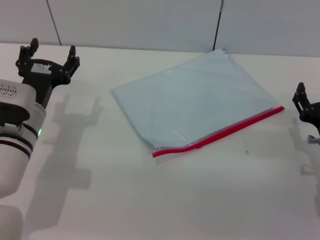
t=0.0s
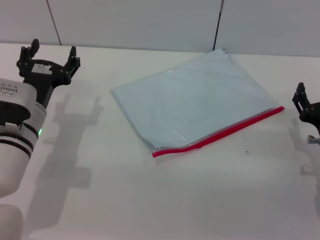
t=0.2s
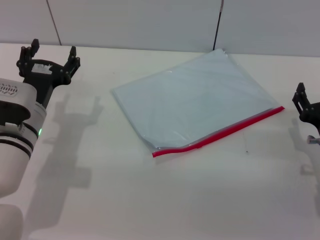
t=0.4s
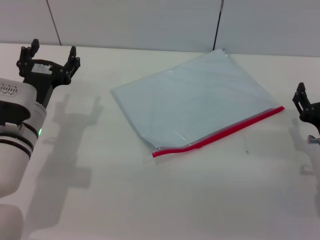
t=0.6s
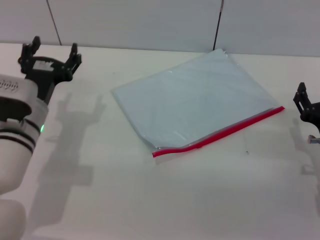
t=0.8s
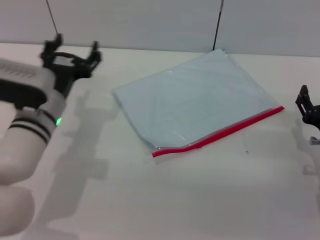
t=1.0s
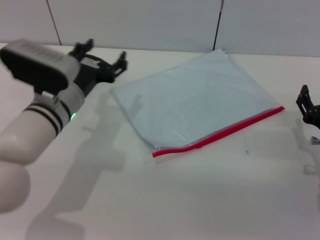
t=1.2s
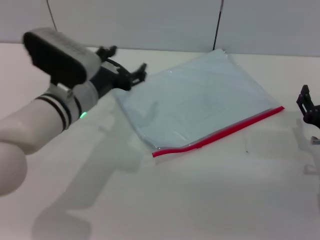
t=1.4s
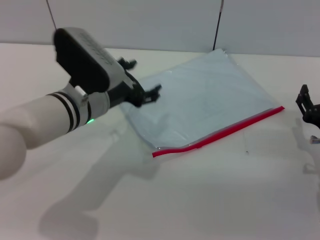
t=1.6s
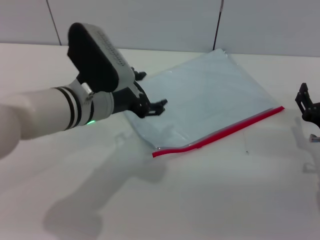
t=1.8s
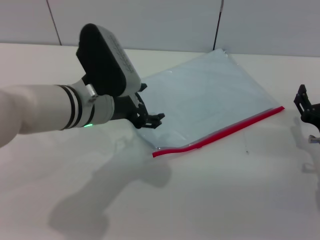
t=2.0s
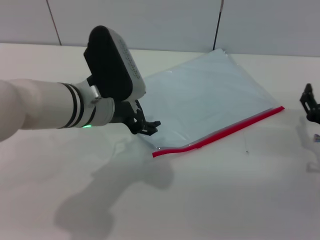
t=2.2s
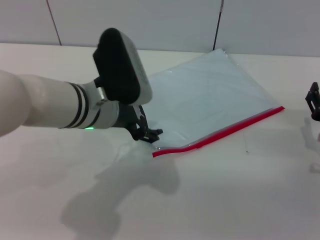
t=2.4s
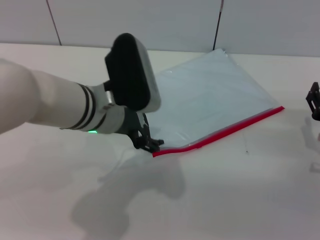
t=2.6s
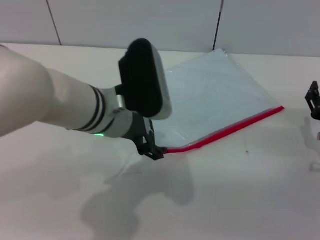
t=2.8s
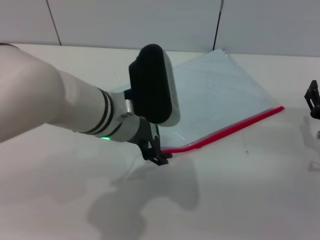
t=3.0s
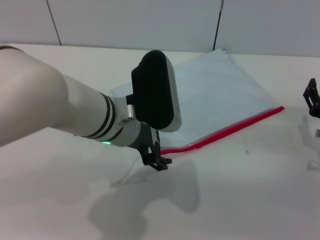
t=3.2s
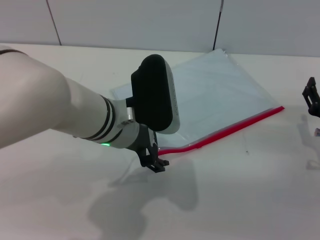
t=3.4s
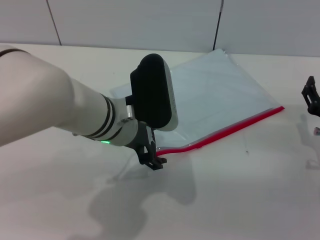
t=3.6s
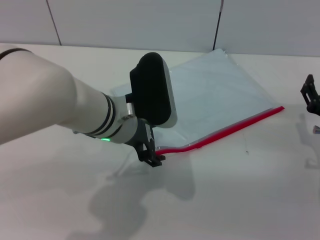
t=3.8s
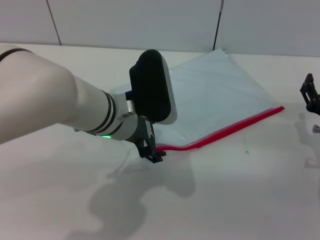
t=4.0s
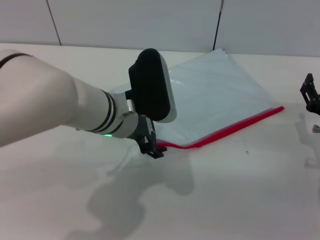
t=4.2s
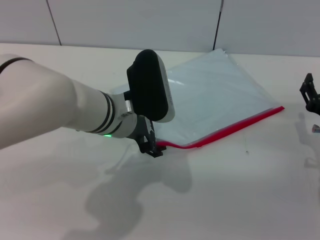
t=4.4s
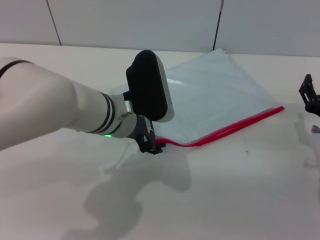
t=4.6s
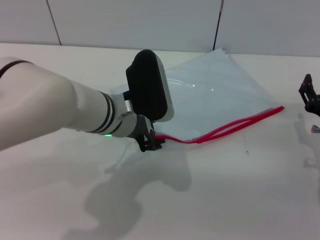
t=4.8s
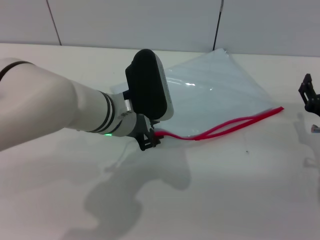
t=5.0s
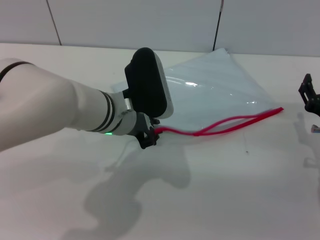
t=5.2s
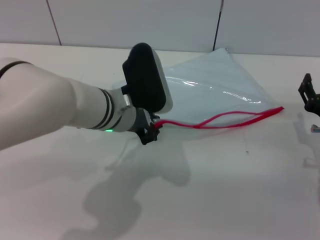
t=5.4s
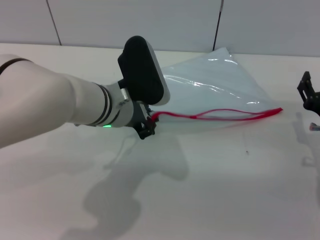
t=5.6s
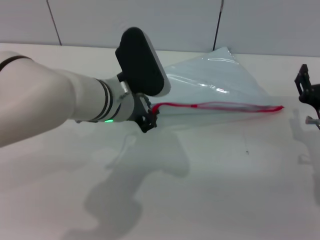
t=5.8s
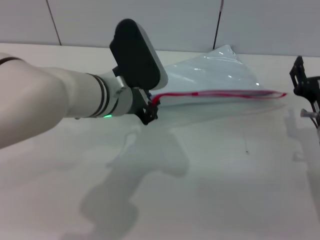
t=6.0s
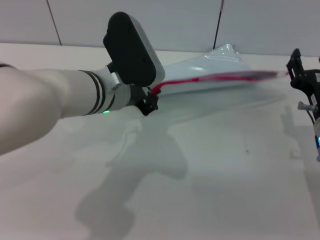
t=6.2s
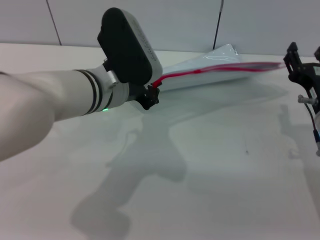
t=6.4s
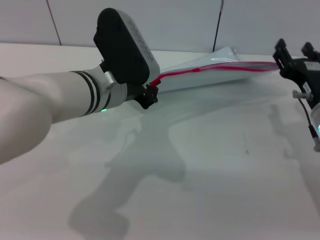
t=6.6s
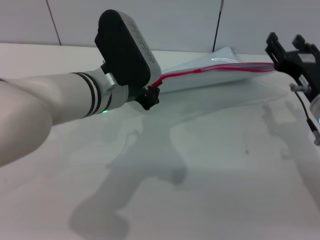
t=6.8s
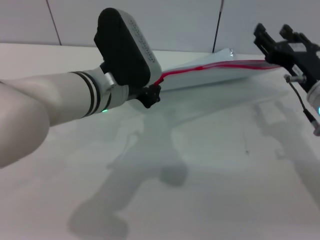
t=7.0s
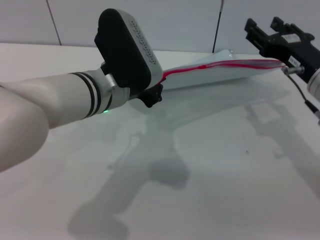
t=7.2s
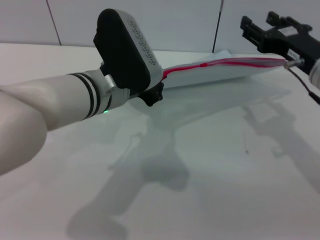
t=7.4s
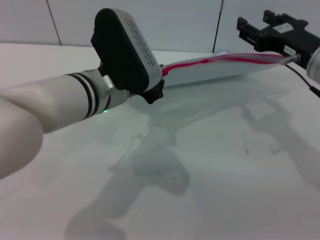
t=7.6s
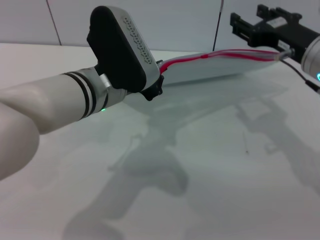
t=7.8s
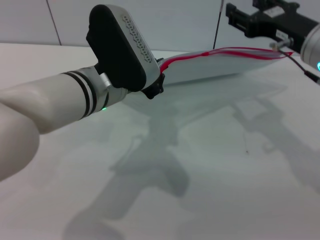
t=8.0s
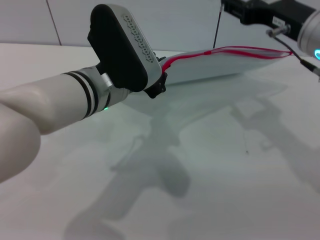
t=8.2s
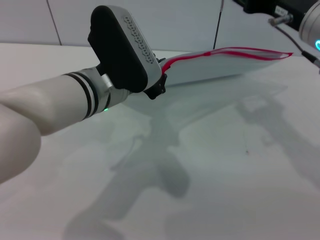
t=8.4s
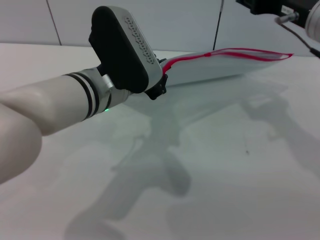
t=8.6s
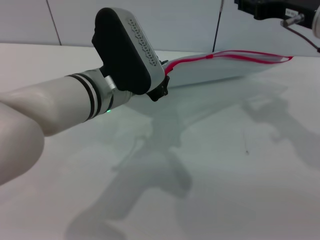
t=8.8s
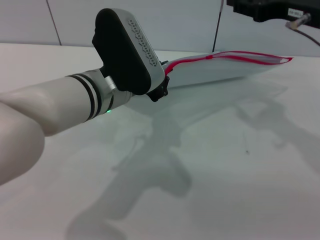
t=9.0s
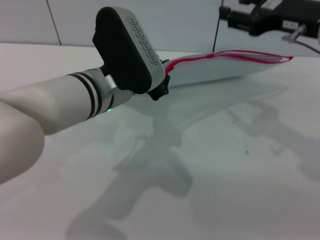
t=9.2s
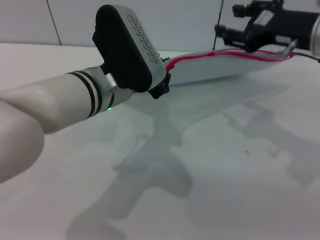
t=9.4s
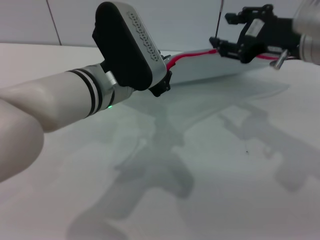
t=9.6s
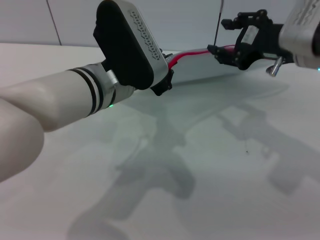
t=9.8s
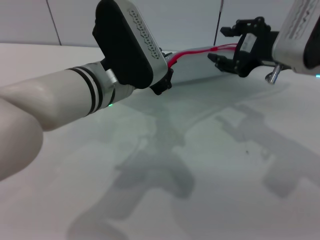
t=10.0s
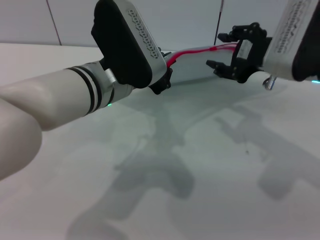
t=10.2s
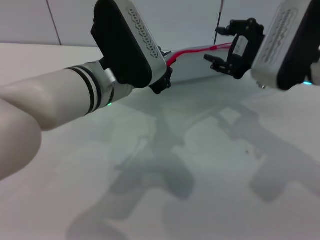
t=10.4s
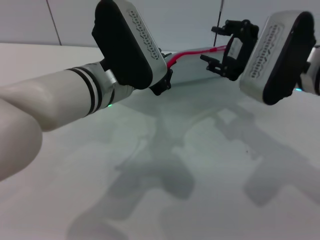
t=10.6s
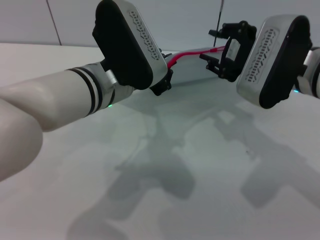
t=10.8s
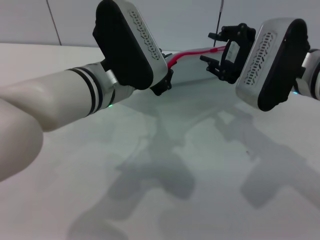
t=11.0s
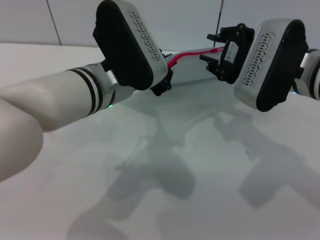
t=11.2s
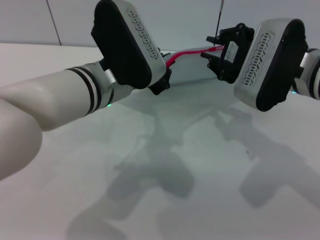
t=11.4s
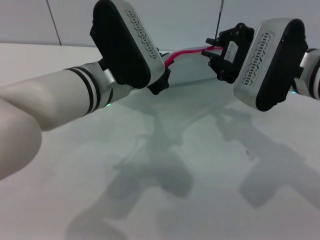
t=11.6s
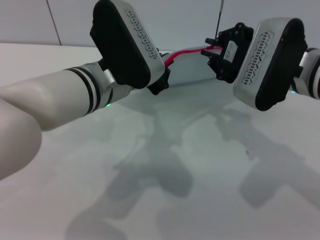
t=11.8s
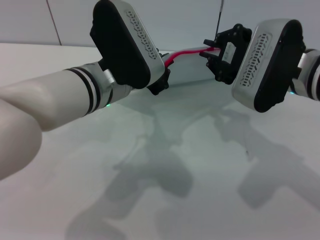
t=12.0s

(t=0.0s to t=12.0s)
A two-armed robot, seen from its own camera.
Step, t=0.0s - t=5.8s: Pick up the transparent plastic bag with the left gripper.
t=0.0s - t=1.6s: The left gripper moves to the right and upward, approximately 10 cm.
t=1.6s - t=3.0s: The left gripper is displaced to the right by about 5 cm.
t=3.0s - t=4.4s: The grippers make only small movements.
t=4.4s - t=6.0s: The left gripper closes its fingers.
t=6.0s - t=7.6s: The right gripper moves upward, approximately 10 cm.
t=7.6s - t=9.0s: The right gripper goes some 5 cm upward.
t=9.0s - t=10.4s: The right gripper changes place by approximately 5 cm.
t=10.4s - t=12.0s: The right gripper closes up.

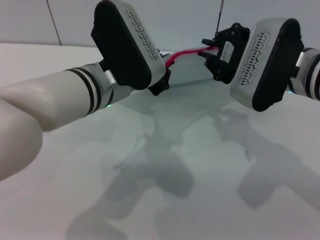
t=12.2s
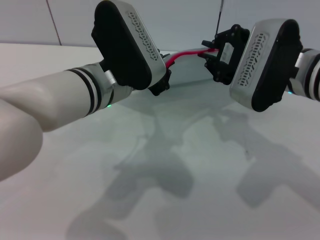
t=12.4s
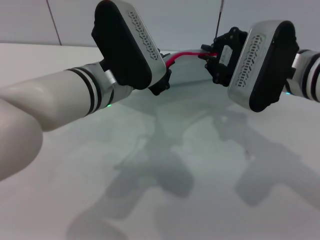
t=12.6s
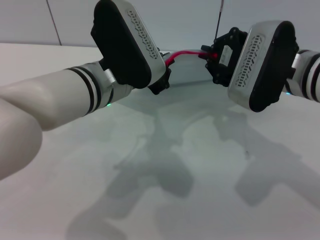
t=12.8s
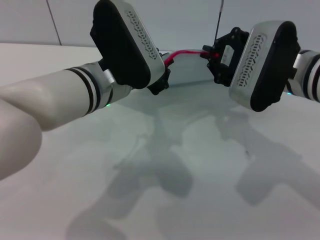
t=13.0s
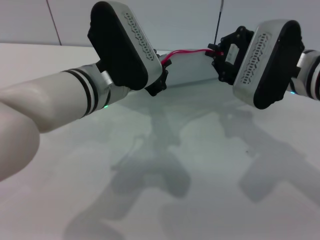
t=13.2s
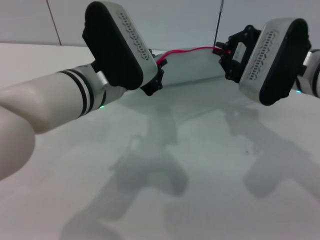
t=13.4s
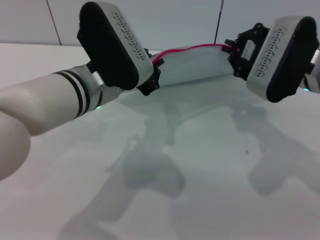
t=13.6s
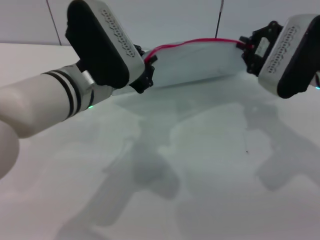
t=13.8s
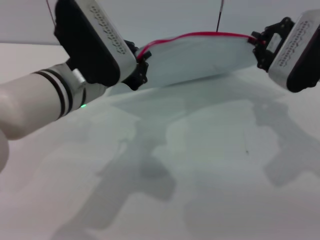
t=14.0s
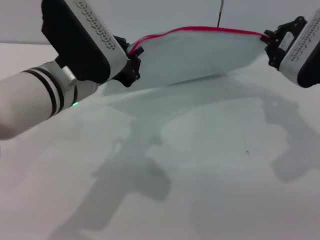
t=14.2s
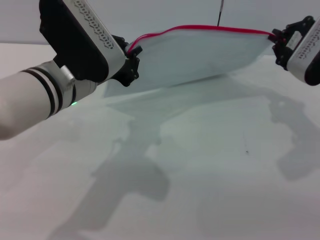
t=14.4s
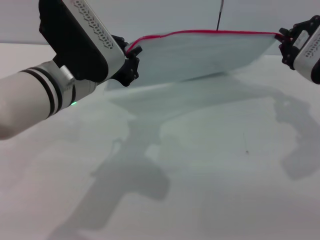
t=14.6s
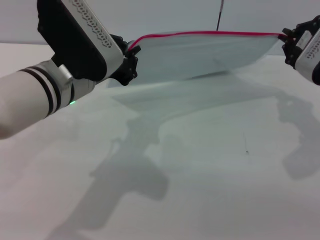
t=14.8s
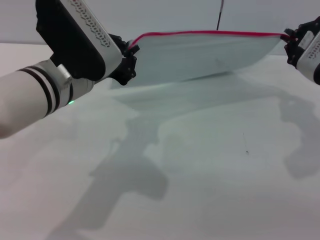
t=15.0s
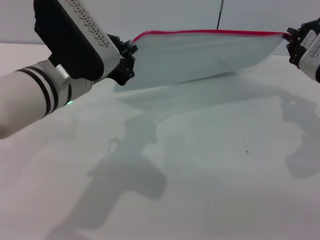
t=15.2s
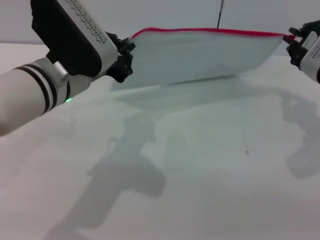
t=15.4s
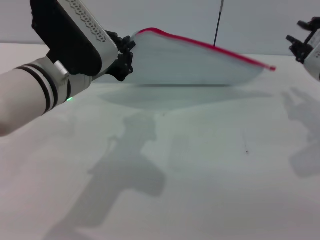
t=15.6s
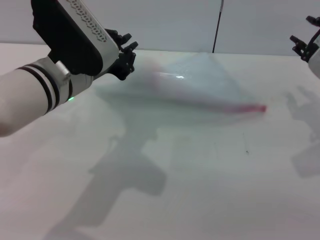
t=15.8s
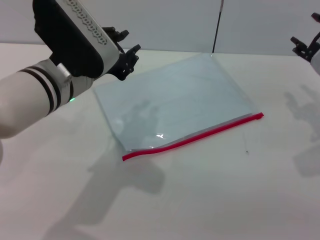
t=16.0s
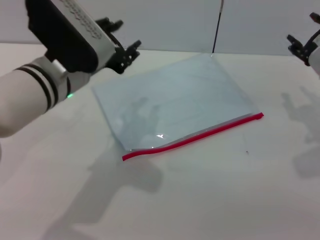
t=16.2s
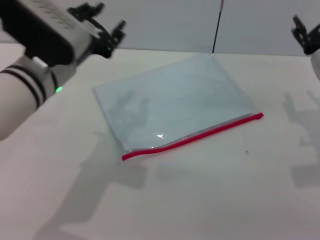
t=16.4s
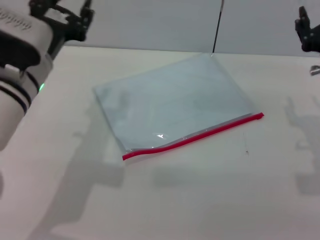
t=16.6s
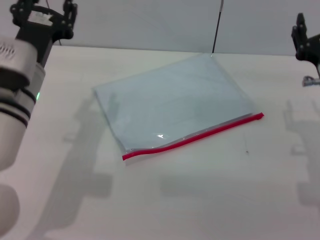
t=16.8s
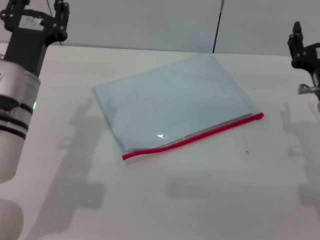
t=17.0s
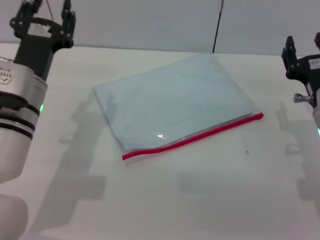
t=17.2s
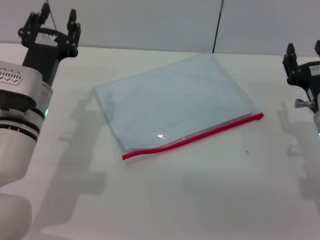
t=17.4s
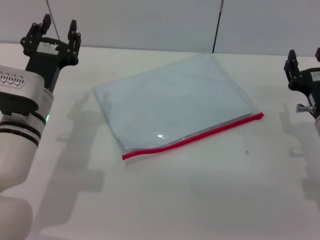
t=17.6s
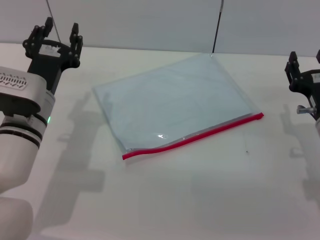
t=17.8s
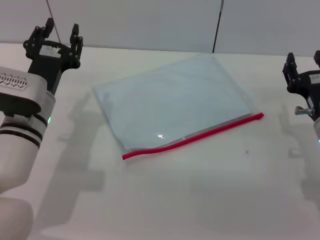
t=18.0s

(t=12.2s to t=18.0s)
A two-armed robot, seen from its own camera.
Step, t=12.2s - t=15.4s: Pulling up the zipper on the transparent plastic bag with the right gripper to close it.
Step, t=15.8s - t=16.4s: Place the transparent plastic bag.
t=12.2s - t=13.6s: There are only small adjustments of the grippers.
t=13.6s - t=15.0s: The right gripper heads to the right, covering approximately 5 cm.
t=15.0s - t=16.6s: The left gripper changes place by approximately 5 cm, and opens its fingers. Meanwhile the right gripper goes approximately 5 cm backward, and opens.
t=16.6s - t=18.0s: The grippers both shift downward by some 10 cm.

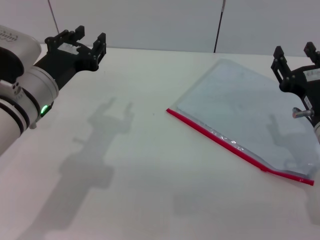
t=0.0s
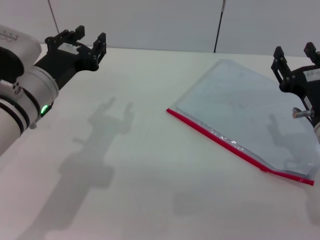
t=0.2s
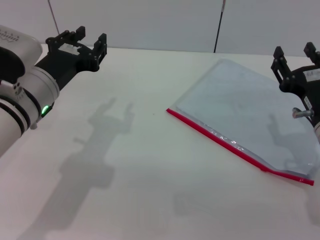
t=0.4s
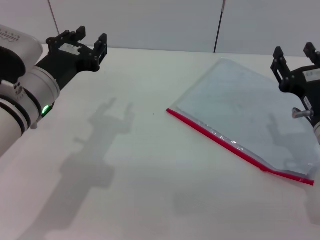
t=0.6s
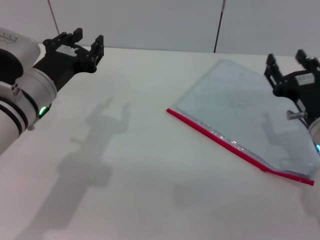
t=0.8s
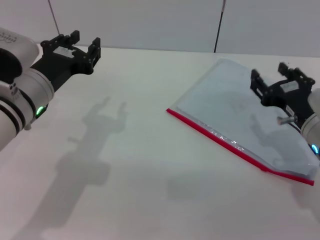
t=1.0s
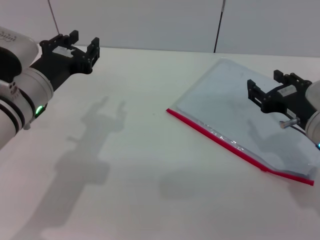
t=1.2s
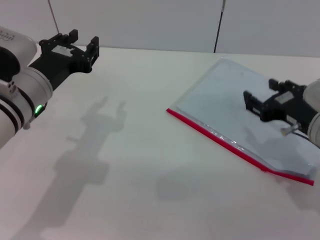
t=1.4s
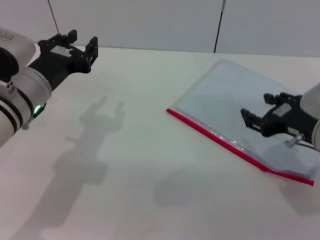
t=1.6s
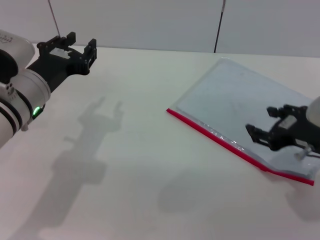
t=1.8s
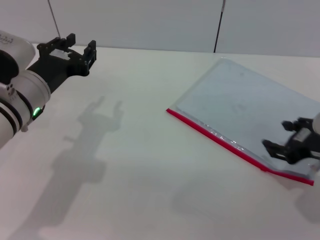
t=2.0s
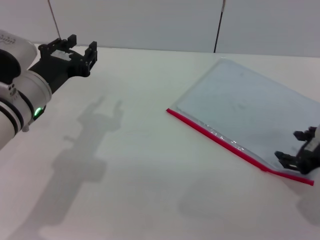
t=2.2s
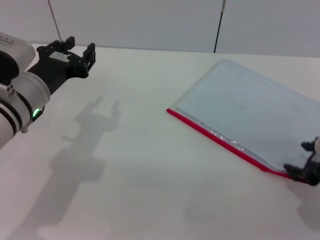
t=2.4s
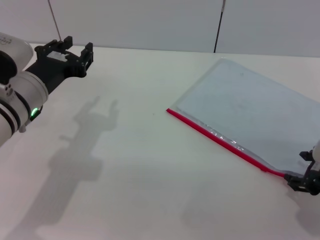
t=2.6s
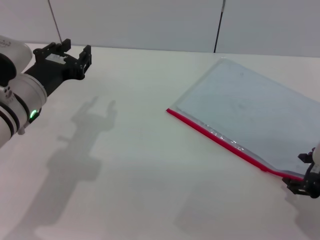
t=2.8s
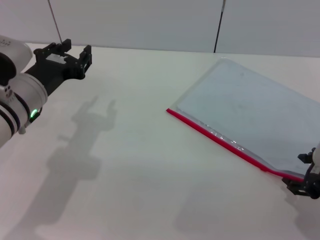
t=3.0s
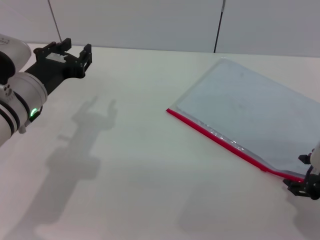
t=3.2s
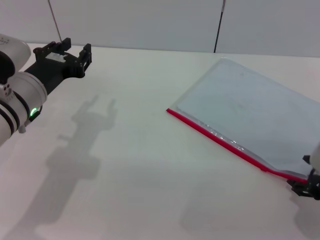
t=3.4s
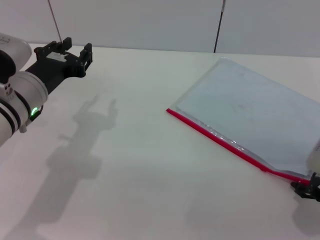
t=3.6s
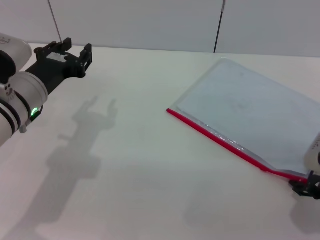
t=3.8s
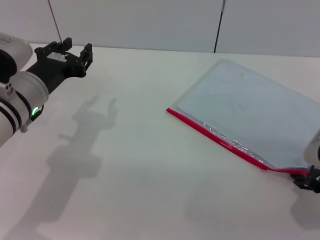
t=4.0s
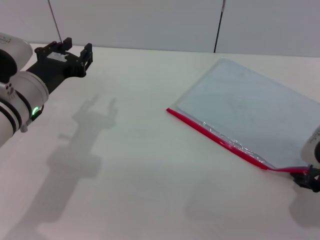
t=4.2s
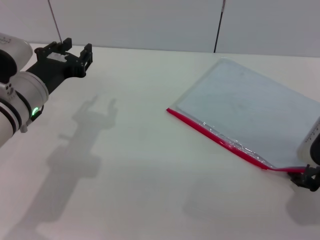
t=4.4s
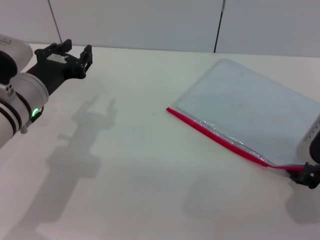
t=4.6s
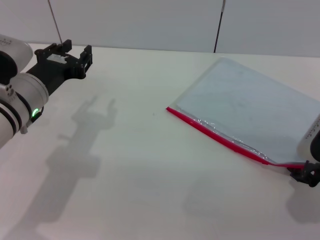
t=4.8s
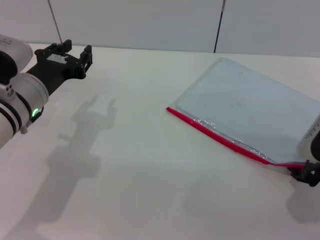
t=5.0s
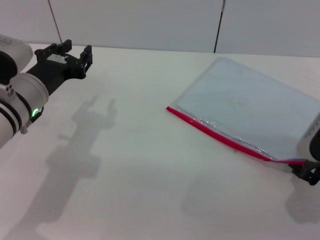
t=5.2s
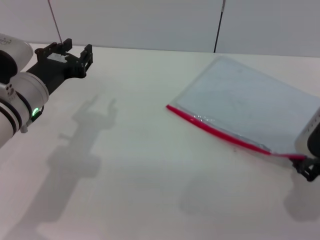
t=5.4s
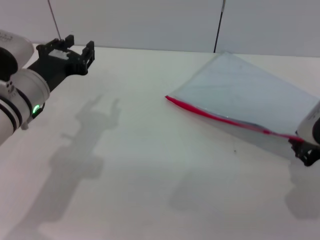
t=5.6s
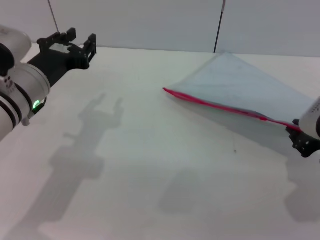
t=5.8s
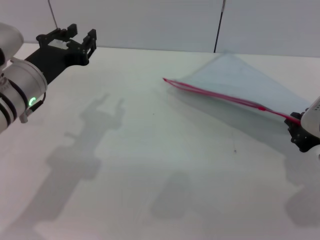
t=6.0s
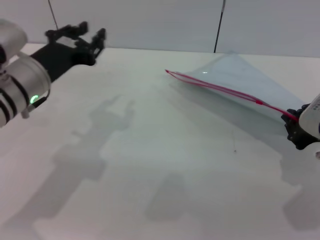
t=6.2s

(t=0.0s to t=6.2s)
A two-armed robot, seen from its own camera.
Step, t=0.0s - t=6.2s: Pick up the transparent plastic bag with the right gripper.
t=3.2s - t=4.6s: The grippers move only a little.
t=4.6s - t=6.2s: The right gripper heads upward, covering about 5 cm, and closes.
